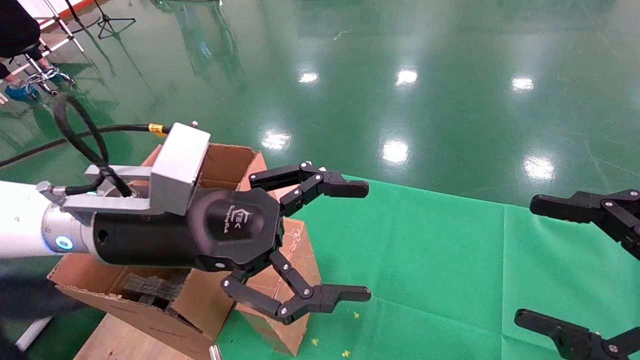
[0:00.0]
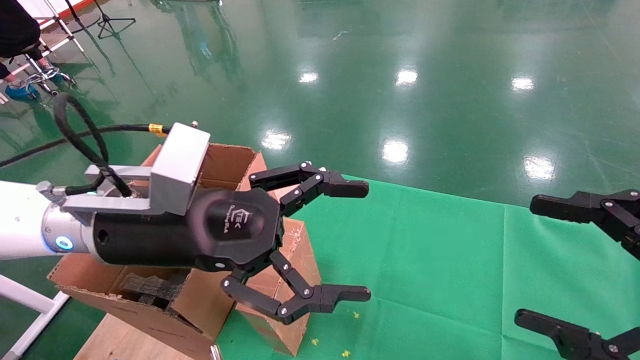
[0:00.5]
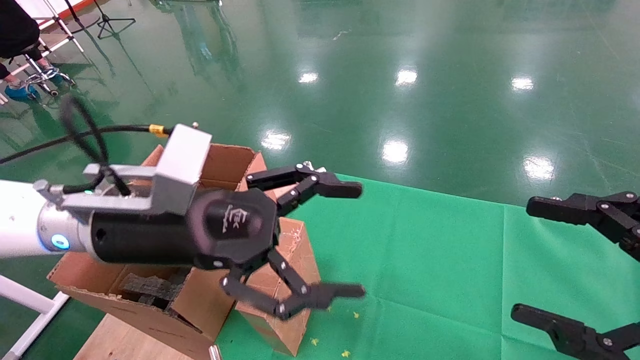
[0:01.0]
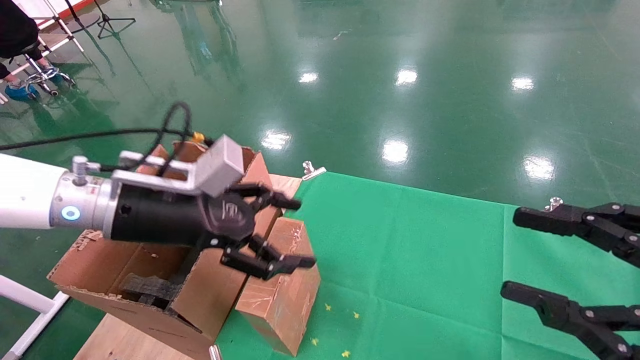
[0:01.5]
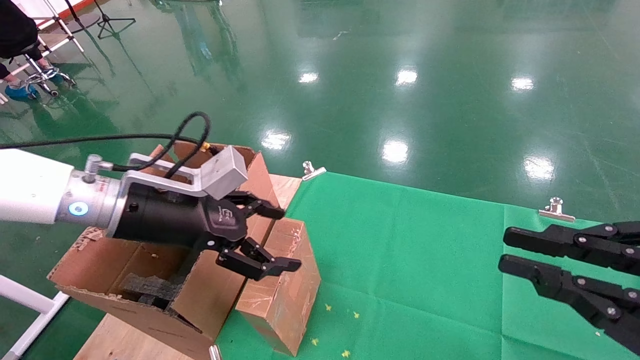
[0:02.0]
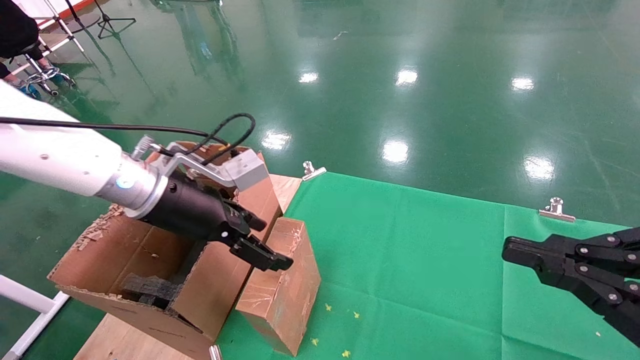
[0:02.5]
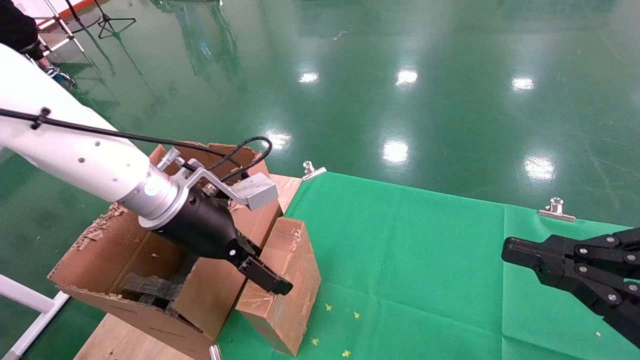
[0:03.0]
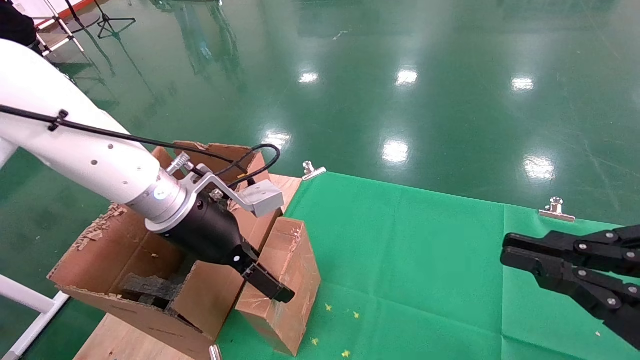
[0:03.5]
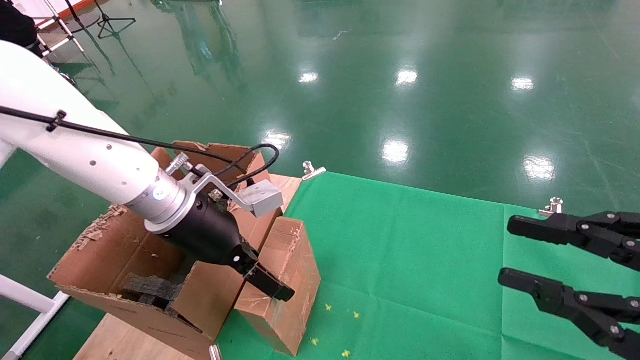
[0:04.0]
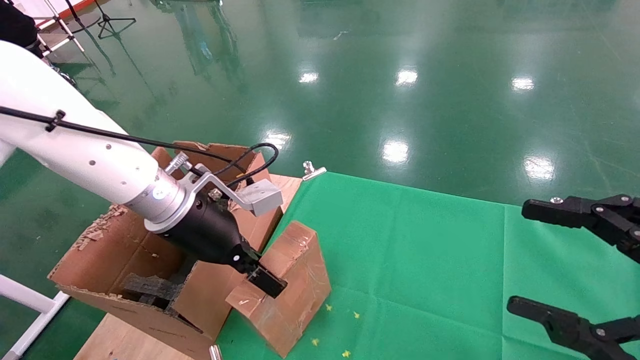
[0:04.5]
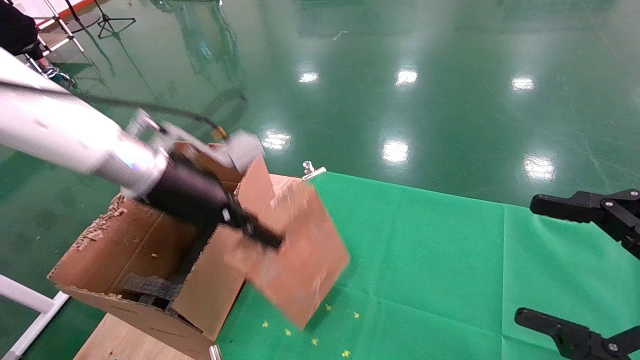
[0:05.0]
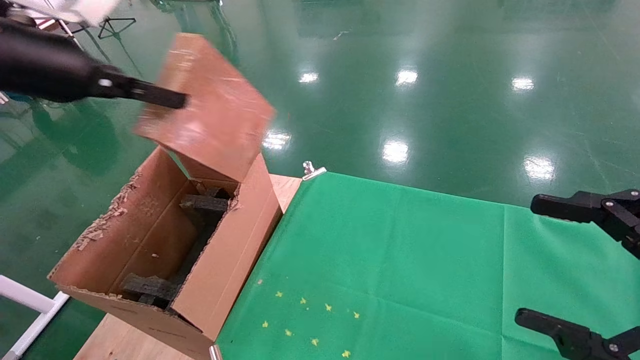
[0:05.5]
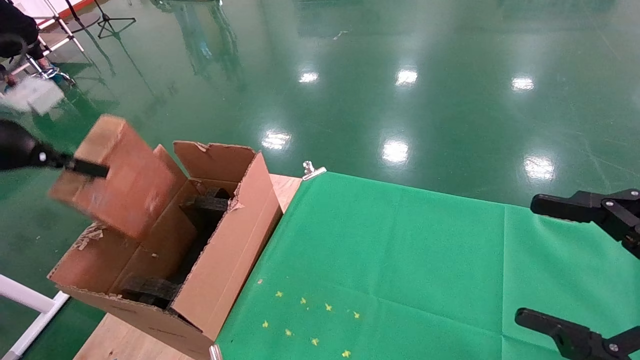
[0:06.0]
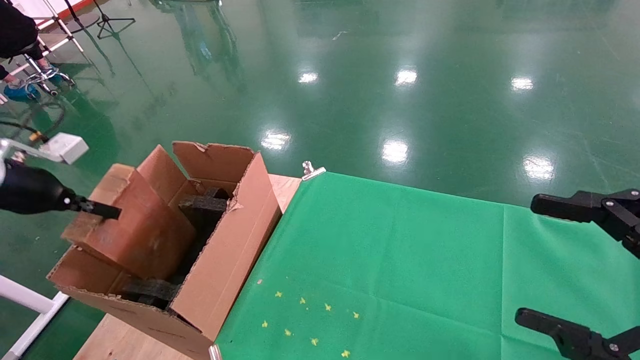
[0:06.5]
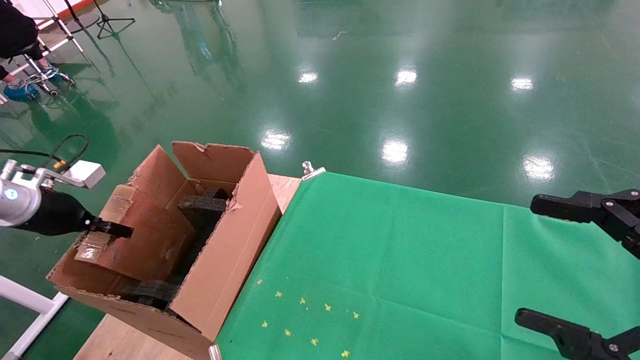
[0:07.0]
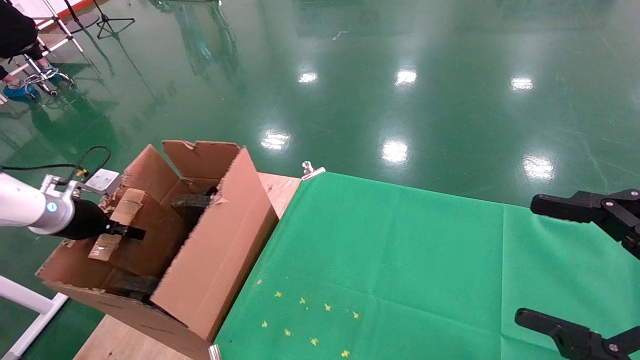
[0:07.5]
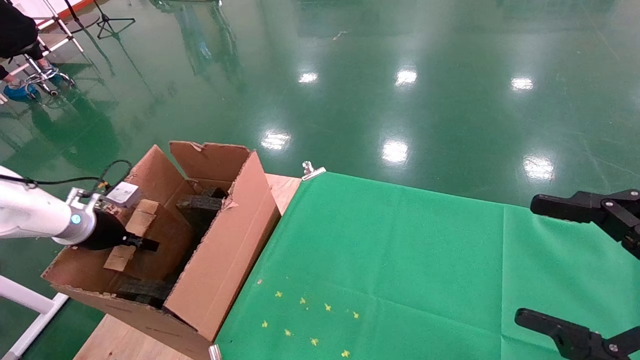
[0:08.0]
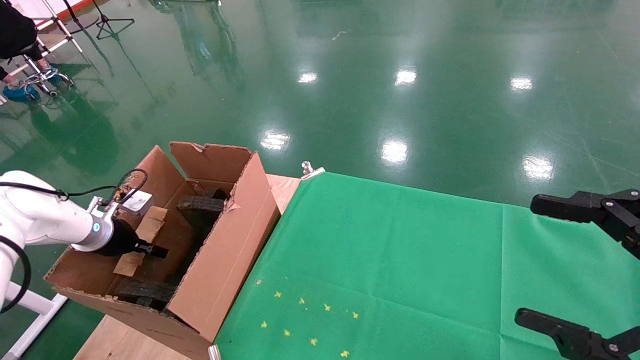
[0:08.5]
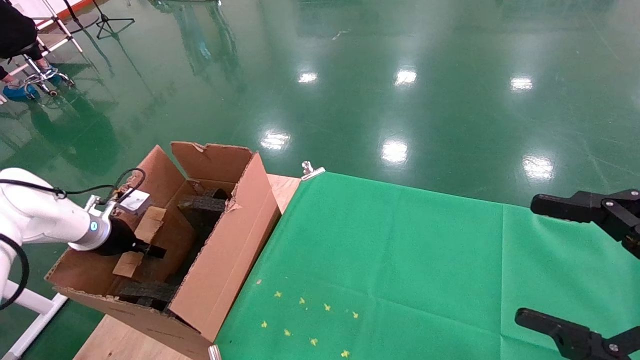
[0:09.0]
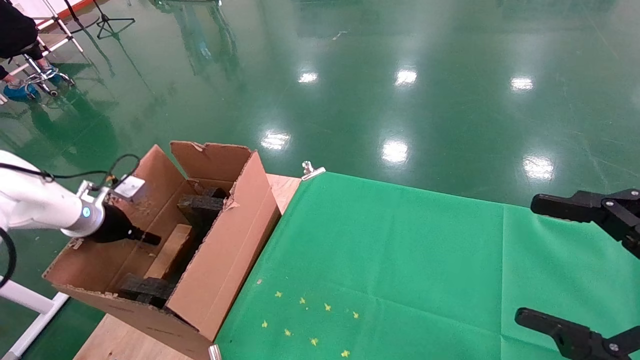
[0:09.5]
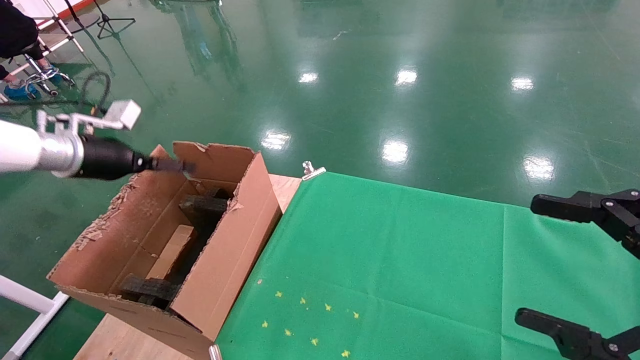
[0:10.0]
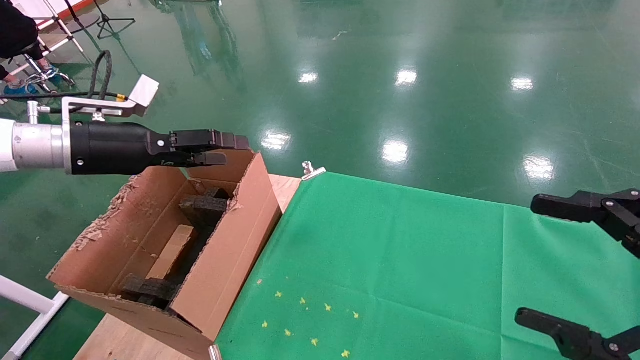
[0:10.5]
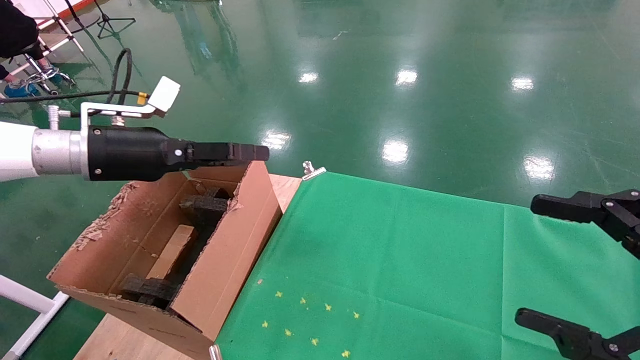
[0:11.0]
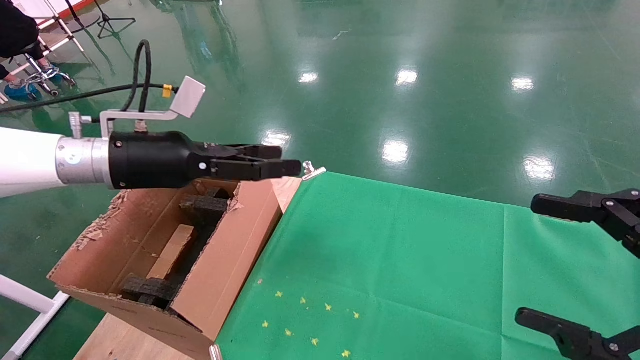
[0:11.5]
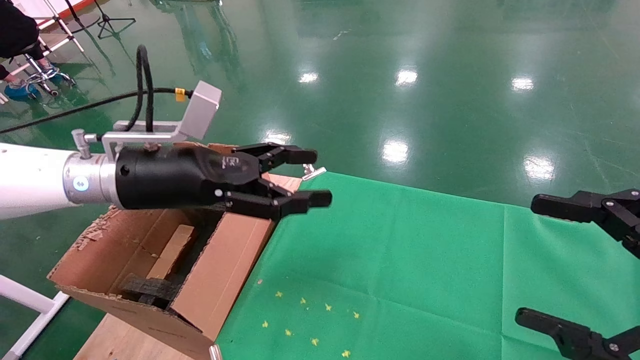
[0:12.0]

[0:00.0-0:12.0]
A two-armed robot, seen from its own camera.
Task of the whole recording: using a robotic arm to pick up a cardboard box and palace it the carton.
Step, 0:01.0 to 0:04.5: Pick up the mouse and the power cord paper box.
Step, 0:05.0 to 0:10.0: Place the mouse and the power cord paper box into the container.
0:00.0 to 0:02.0: The left gripper is displaced to the left and forward by some 5 cm, while the right gripper closes its fingers.
0:02.0 to 0:04.0: The left gripper shifts by about 5 cm.
0:04.0 to 0:06.0: The right gripper opens its fingers. Meanwhile the left gripper travels to the left by some 25 cm, and closes its fingers.
0:06.0 to 0:08.0: The left gripper goes approximately 25 cm downward and forward.
0:08.0 to 0:10.0: The left gripper is displaced upward and to the right by approximately 15 cm, and opens.
0:10.0 to 0:12.0: The left gripper travels to the right by about 20 cm.

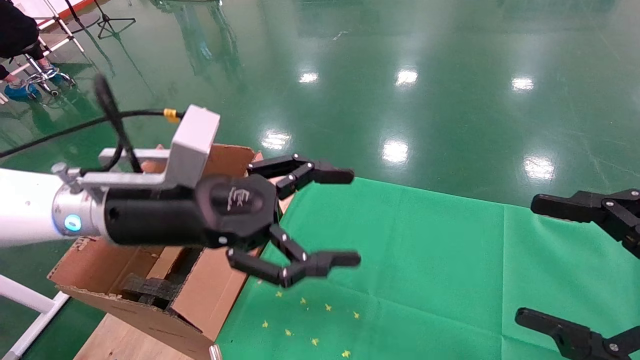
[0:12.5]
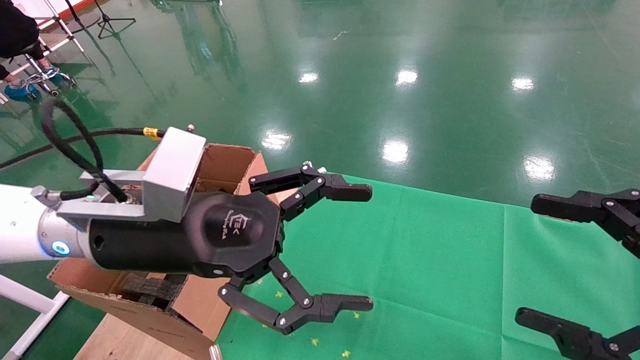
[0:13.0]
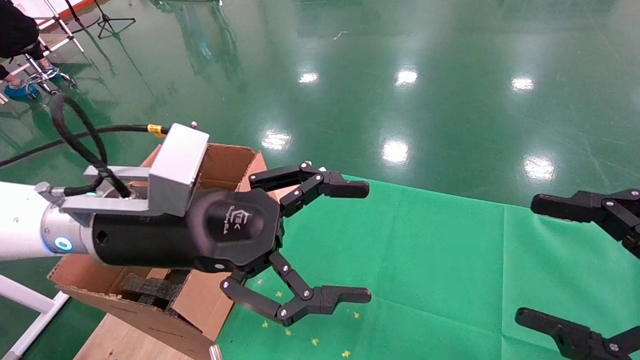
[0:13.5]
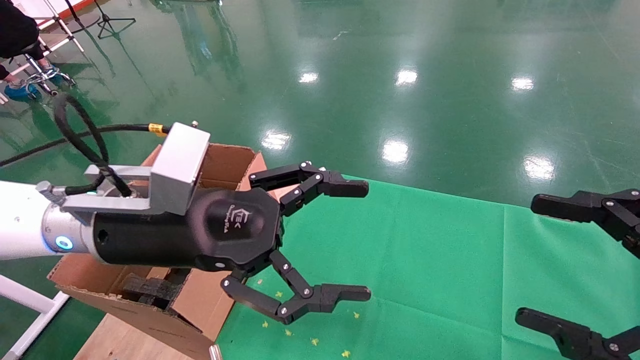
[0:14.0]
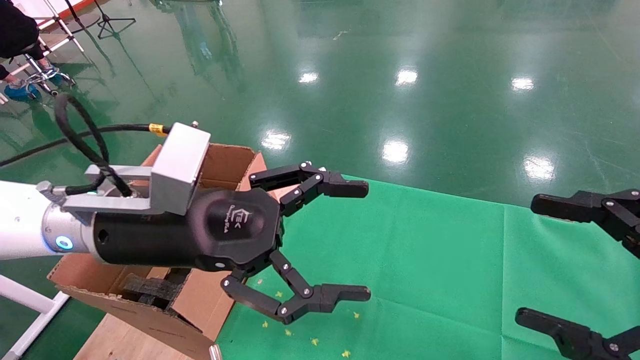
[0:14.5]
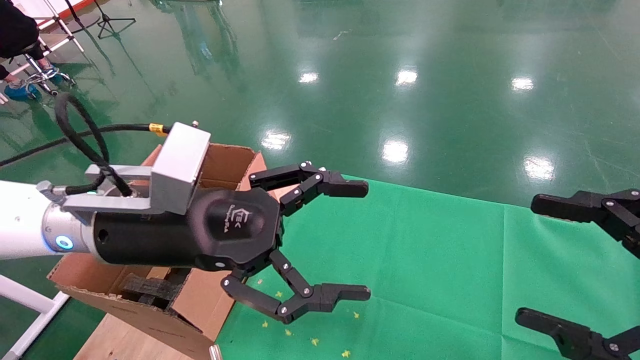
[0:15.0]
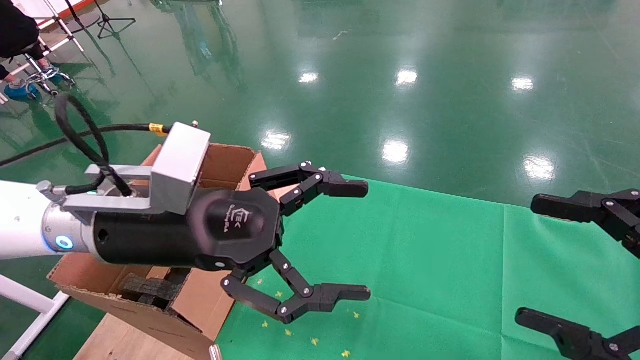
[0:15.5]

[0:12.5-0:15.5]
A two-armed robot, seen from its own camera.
Task of the whole recording: using a robotic arm to pick up a cardboard box and palace it the carton.
0:12.5 to 0:14.0: The grippers make only small movements.
0:14.0 to 0:15.5: Neither gripper changes place.
